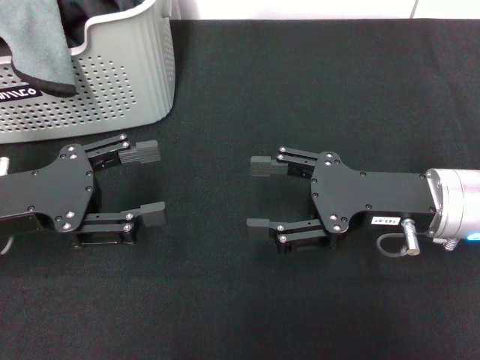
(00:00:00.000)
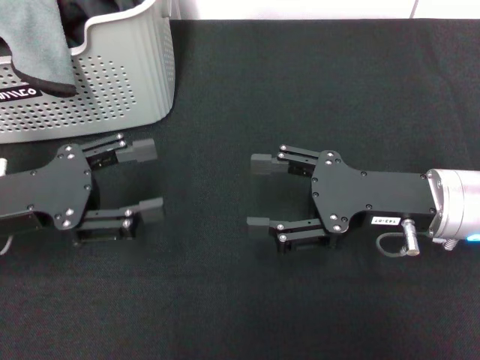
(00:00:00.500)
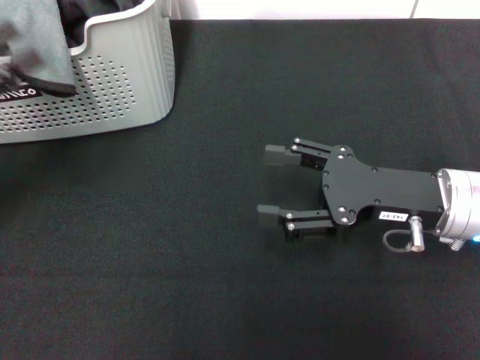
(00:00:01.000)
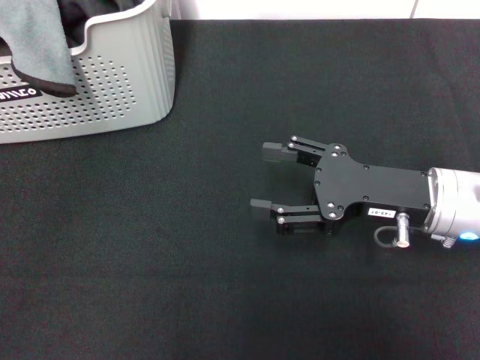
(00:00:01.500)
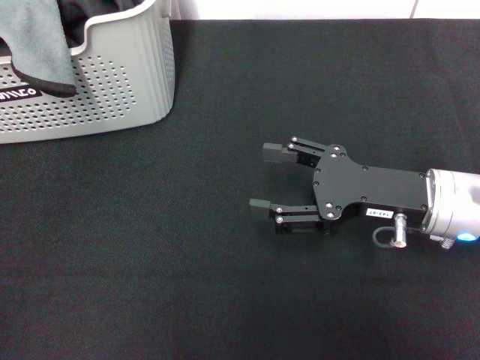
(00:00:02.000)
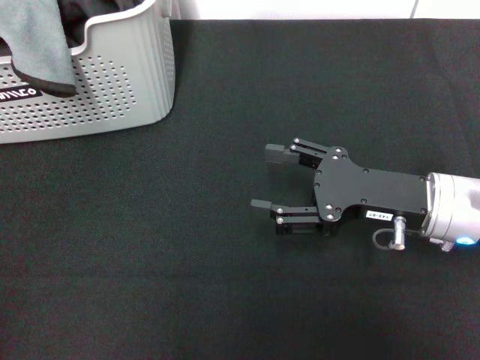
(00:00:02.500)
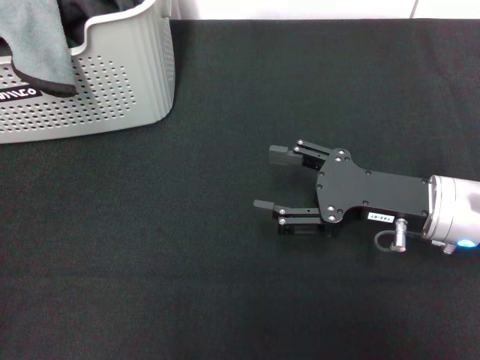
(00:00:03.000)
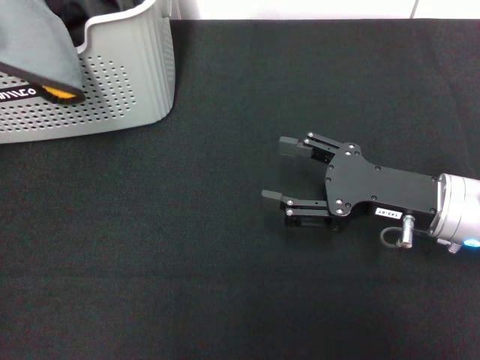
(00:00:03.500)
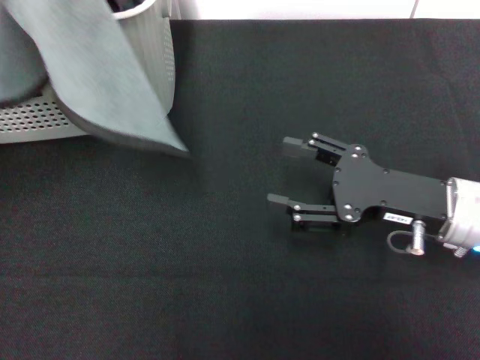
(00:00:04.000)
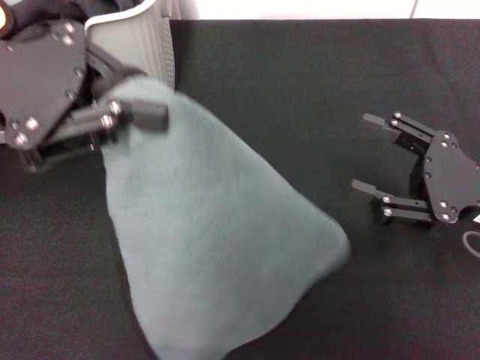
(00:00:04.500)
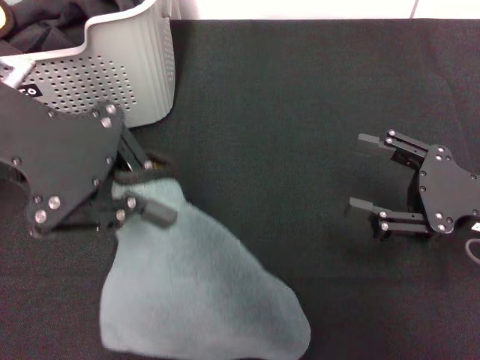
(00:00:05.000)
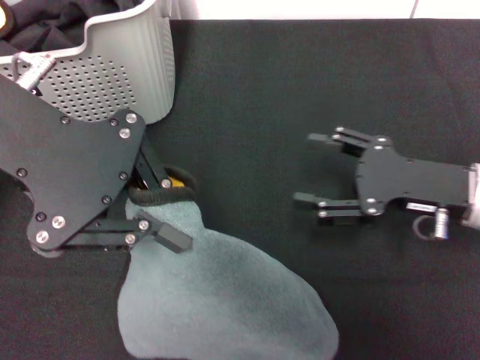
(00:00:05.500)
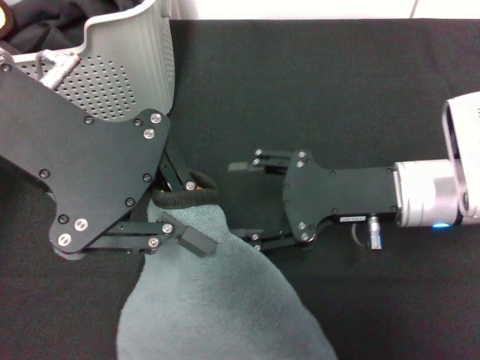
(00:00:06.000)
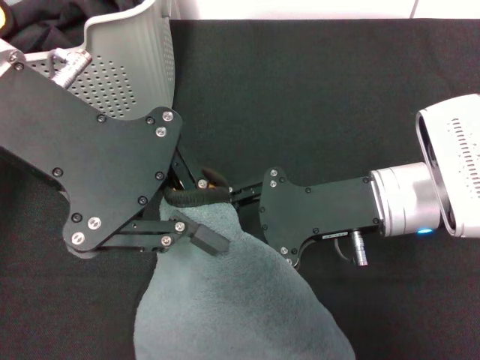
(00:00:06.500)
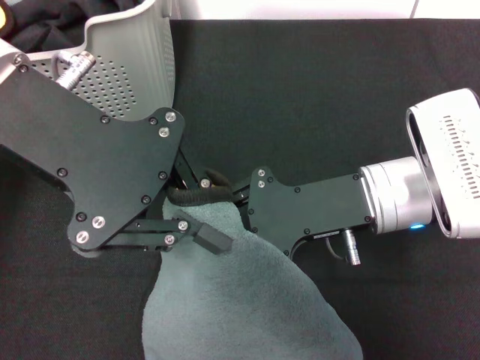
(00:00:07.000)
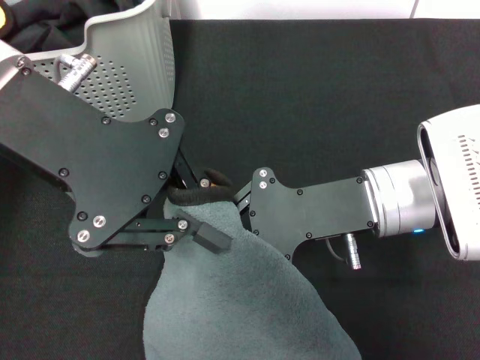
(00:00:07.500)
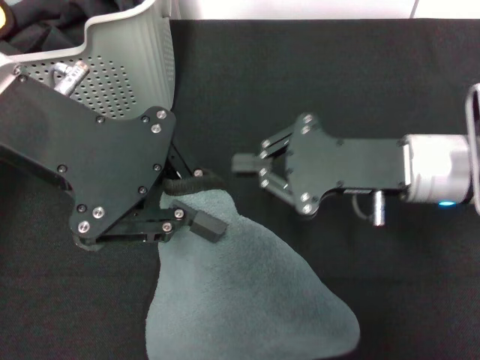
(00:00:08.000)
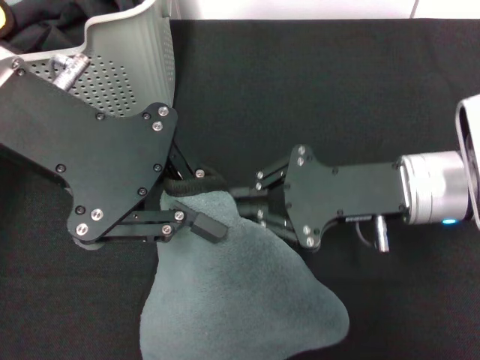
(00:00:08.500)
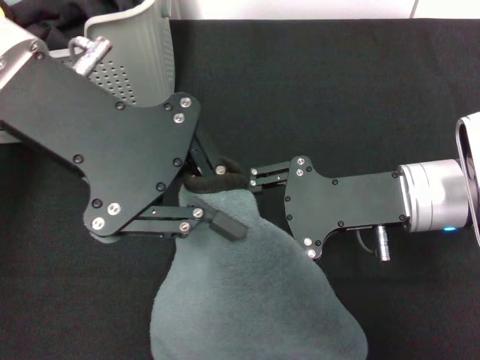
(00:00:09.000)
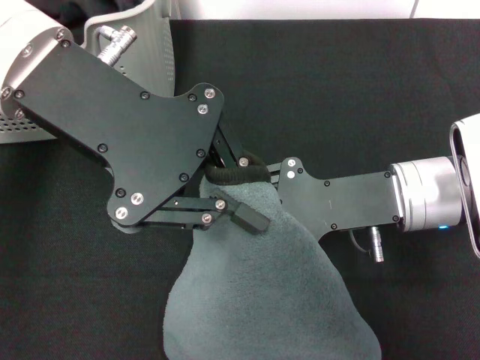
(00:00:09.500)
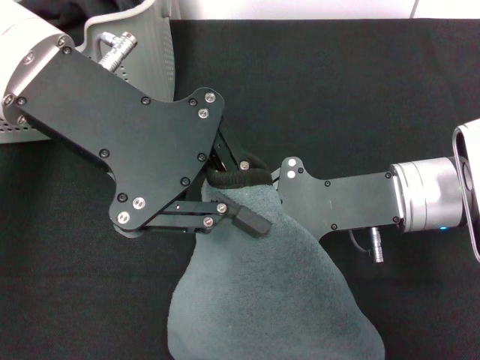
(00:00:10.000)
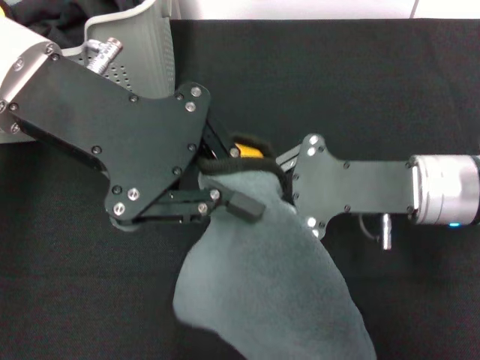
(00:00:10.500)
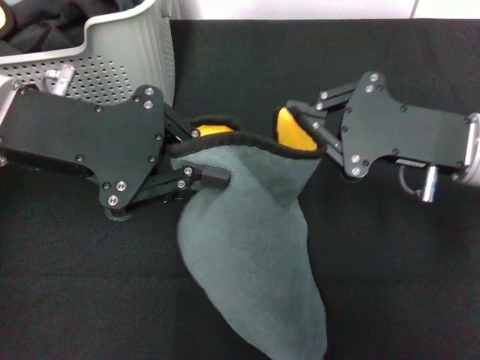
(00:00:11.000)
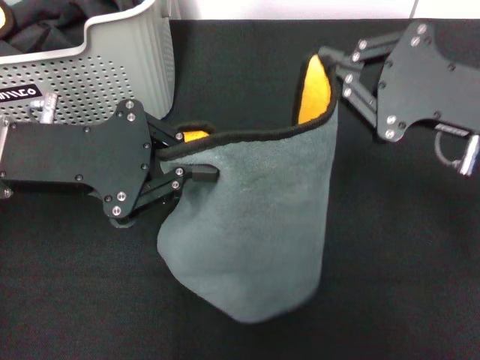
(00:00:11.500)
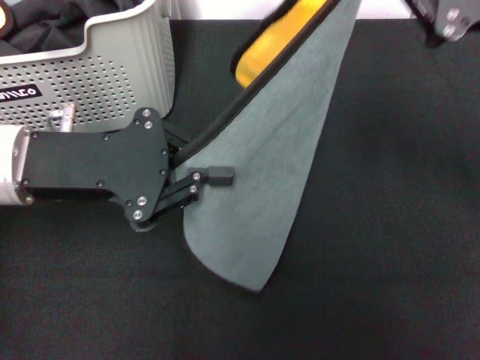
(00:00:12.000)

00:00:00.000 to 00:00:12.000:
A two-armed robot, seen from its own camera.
Task of the whole recording: pick up the towel from the storage box and lay it flat on the black tablecloth.
Step, 00:00:00.000 to 00:00:03.000: Pick up a towel with the left gripper.
Step, 00:00:03.500 to 00:00:10.000: Spread the towel flat with the left gripper.
00:00:00.000 to 00:00:02.000: The left gripper is displaced to the left and upward by roughly 15 cm.
00:00:02.000 to 00:00:04.000: The left gripper moves to the right, roughly 10 cm, and closes up.
00:00:04.000 to 00:00:06.000: The right gripper moves about 5 cm, while the left gripper heads to the right, covering roughly 10 cm.
00:00:06.000 to 00:00:08.000: The right gripper closes up.
00:00:08.000 to 00:00:10.000: The right gripper opens, then closes again.
00:00:10.000 to 00:00:12.000: The right gripper heads upward and to the right, covering approximately 15 cm. Meanwhile the left gripper moves downward and to the left, approximately 10 cm.

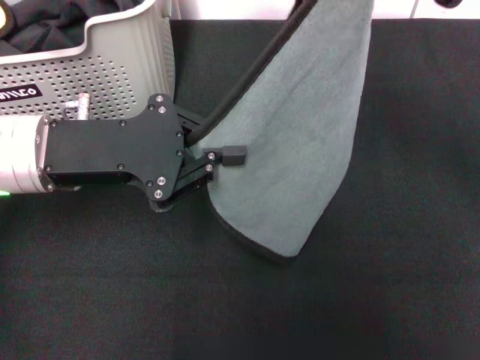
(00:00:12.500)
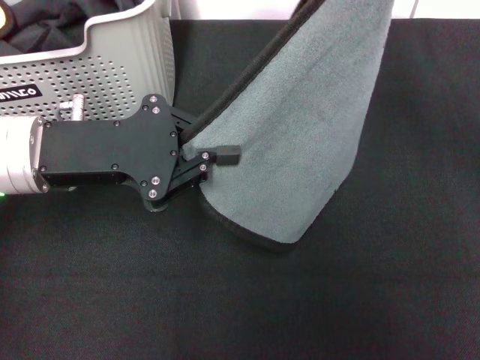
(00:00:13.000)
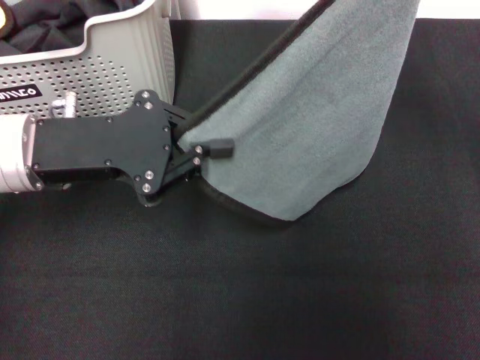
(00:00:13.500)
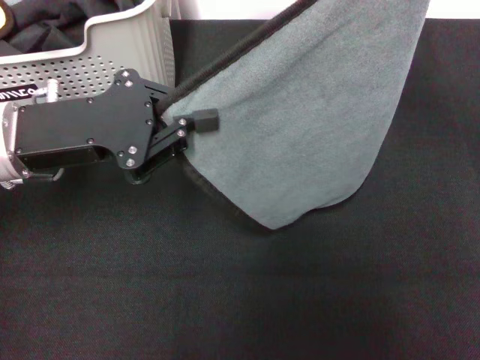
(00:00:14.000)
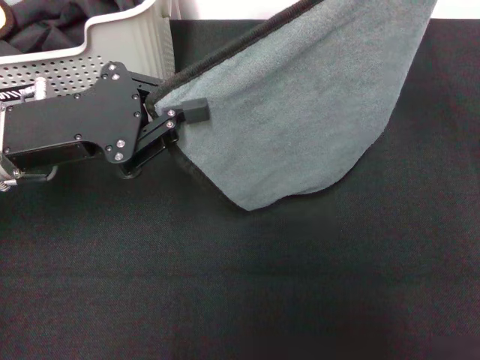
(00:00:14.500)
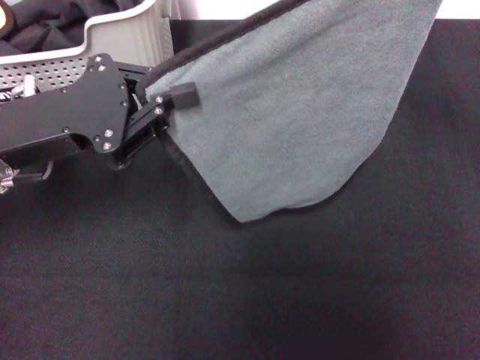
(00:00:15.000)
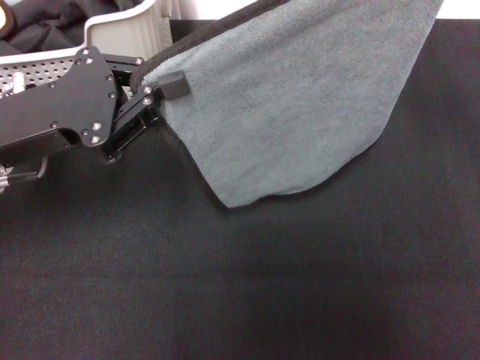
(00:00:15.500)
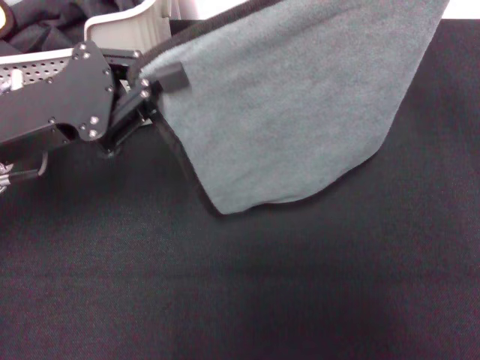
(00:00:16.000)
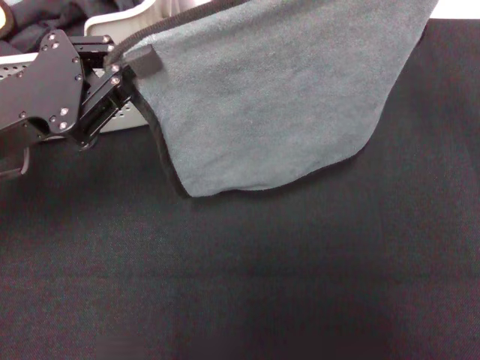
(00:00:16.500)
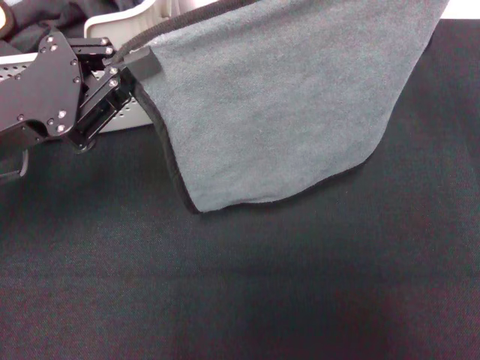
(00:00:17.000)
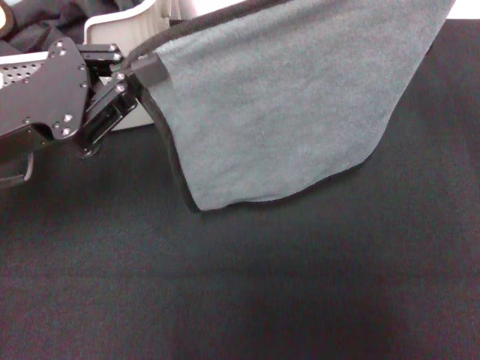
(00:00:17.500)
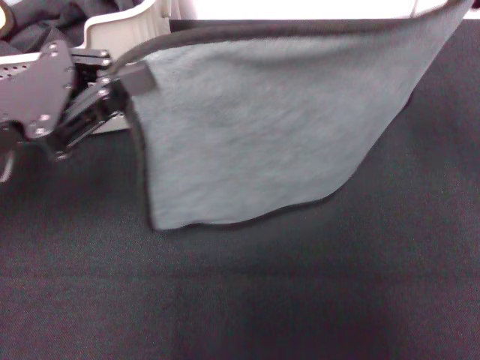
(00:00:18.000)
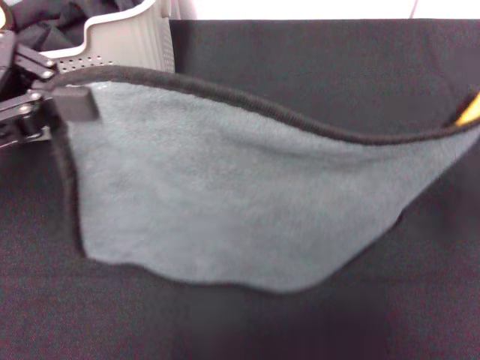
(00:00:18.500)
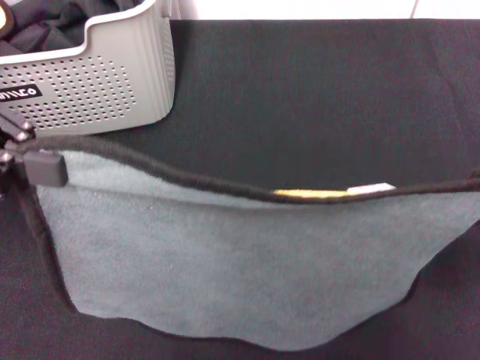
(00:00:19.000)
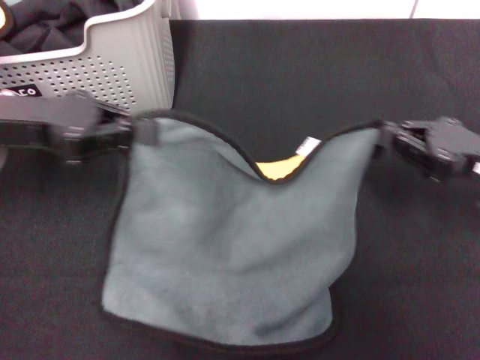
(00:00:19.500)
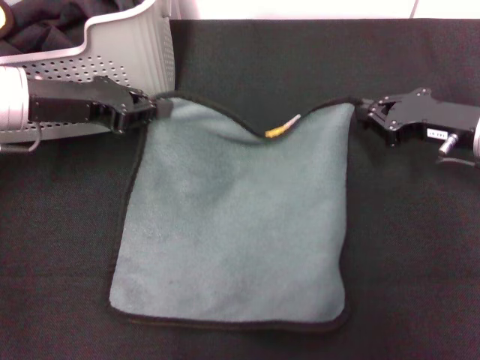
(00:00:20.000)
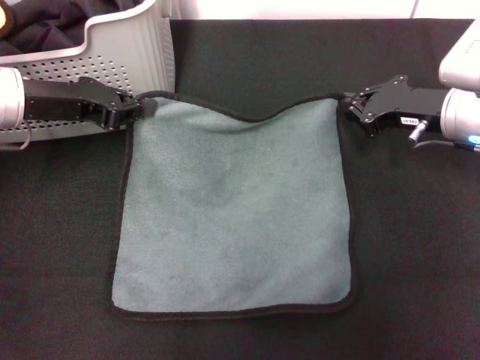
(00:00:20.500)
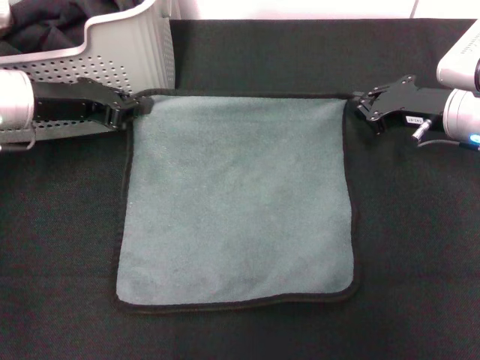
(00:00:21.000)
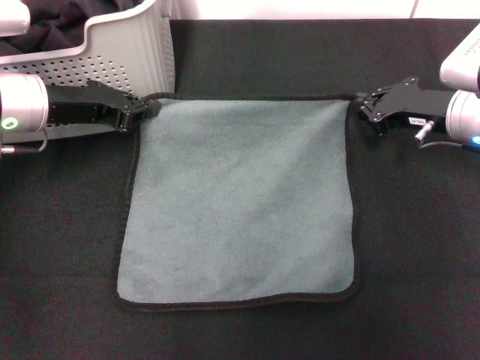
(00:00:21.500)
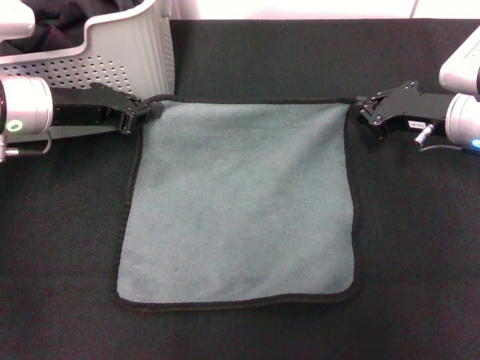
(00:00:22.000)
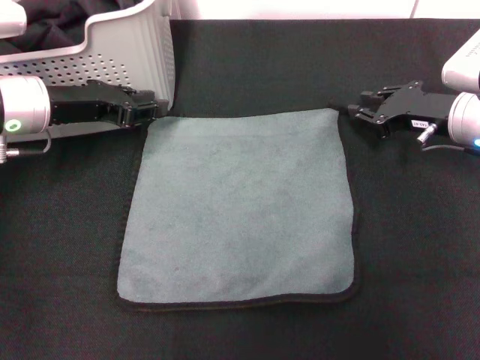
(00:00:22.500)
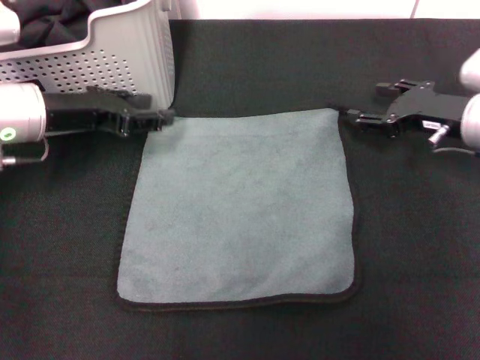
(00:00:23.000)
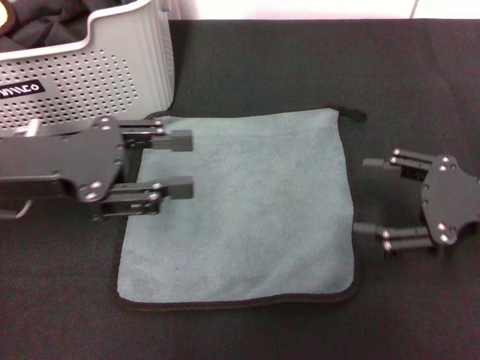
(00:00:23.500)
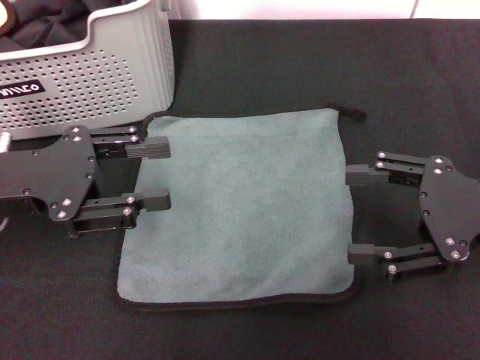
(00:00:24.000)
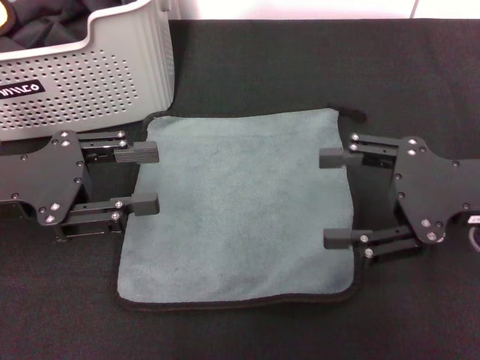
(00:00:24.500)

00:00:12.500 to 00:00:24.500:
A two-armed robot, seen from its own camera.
Task of the whole recording: pick up the towel from the storage box and lay it flat on the black tablecloth.
Step, 00:00:12.500 to 00:00:22.000: Spread the towel flat with the right gripper.
00:00:12.500 to 00:00:14.500: The right gripper goes about 5 cm to the right.
00:00:14.500 to 00:00:16.500: There are only small adjustments of the grippers.
00:00:16.500 to 00:00:18.500: The left gripper is displaced upward by approximately 10 cm, while the right gripper goes some 5 cm backward.
00:00:18.500 to 00:00:20.500: The left gripper is displaced downward and forward by roughly 15 cm, while the right gripper travels forward, to the left and downward by about 20 cm.
00:00:20.500 to 00:00:22.500: The grippers stay close to where they were, moving slightly.
00:00:22.500 to 00:00:24.500: The left gripper goes approximately 10 cm backward, and opens its fingers. The right gripper travels backward and upward by approximately 15 cm, and opens its fingers.
